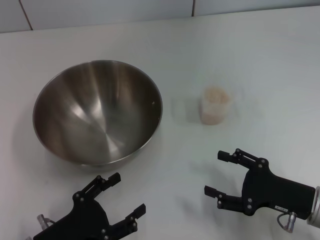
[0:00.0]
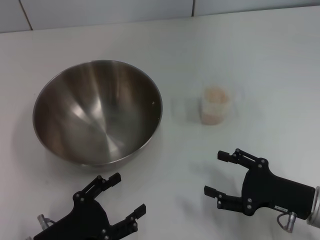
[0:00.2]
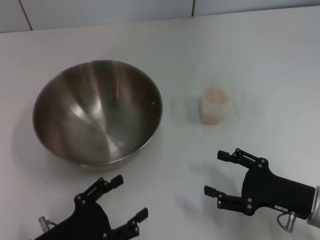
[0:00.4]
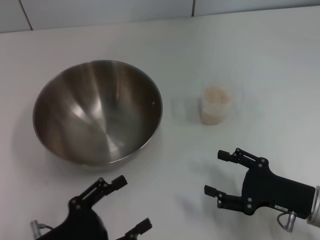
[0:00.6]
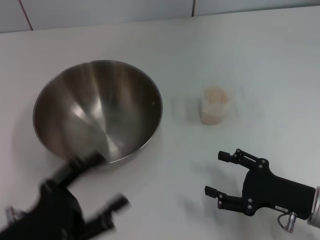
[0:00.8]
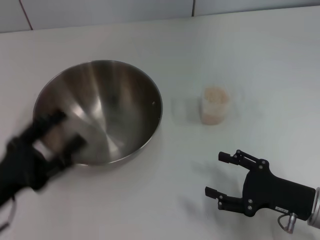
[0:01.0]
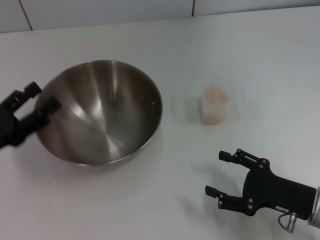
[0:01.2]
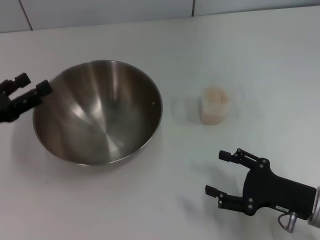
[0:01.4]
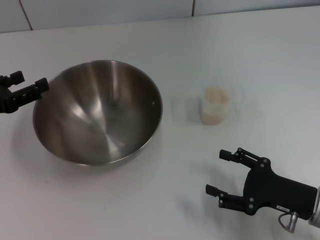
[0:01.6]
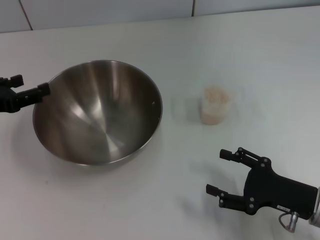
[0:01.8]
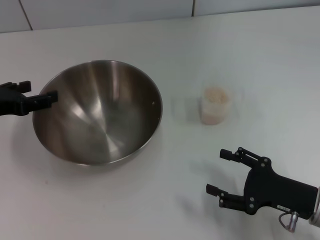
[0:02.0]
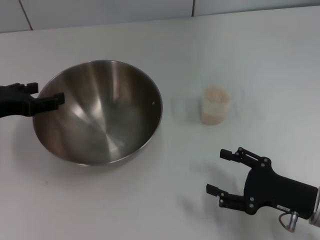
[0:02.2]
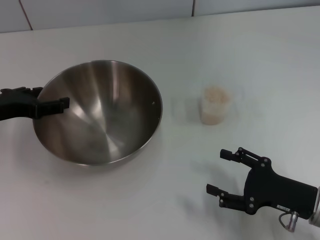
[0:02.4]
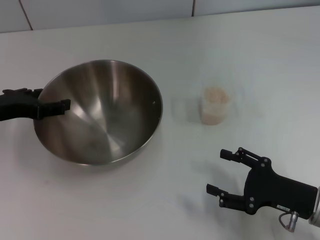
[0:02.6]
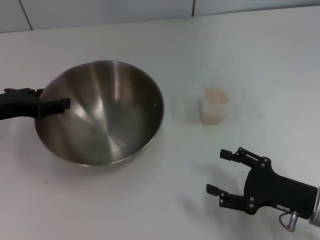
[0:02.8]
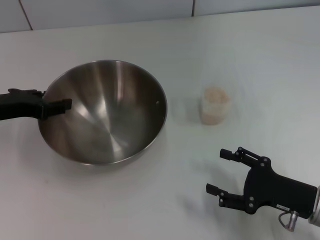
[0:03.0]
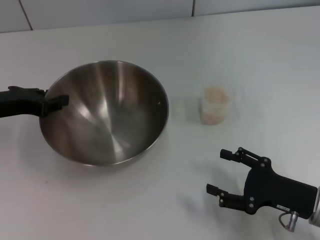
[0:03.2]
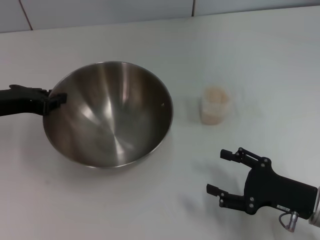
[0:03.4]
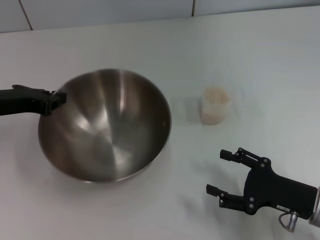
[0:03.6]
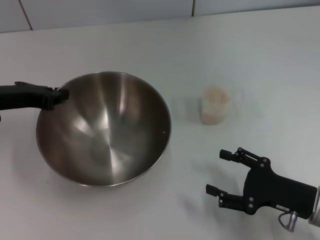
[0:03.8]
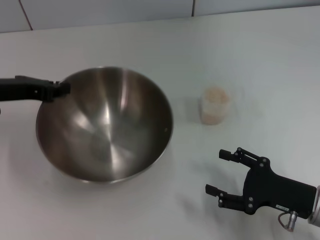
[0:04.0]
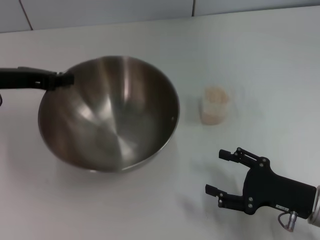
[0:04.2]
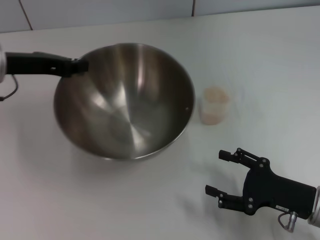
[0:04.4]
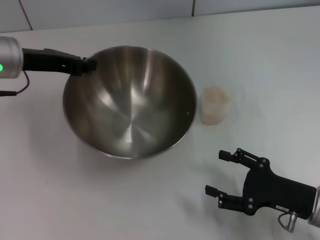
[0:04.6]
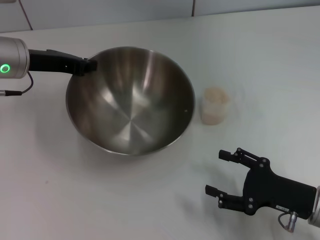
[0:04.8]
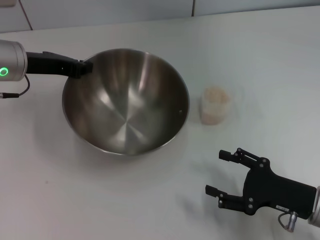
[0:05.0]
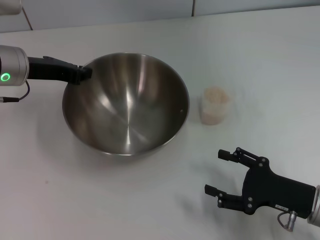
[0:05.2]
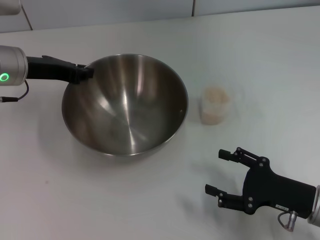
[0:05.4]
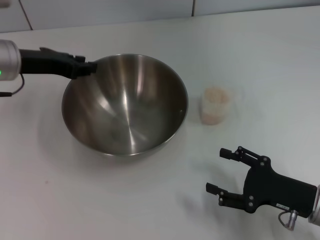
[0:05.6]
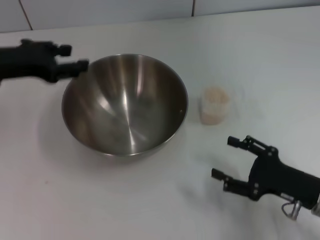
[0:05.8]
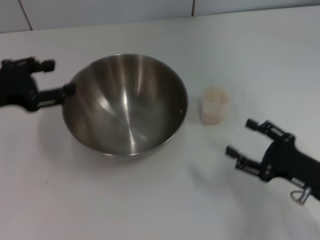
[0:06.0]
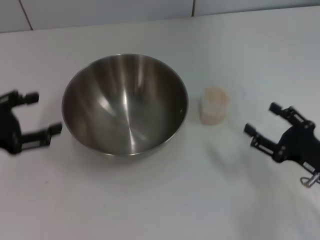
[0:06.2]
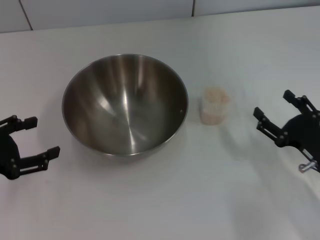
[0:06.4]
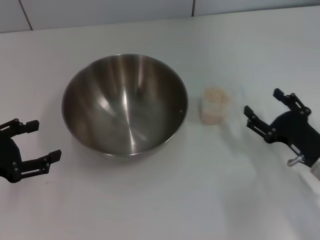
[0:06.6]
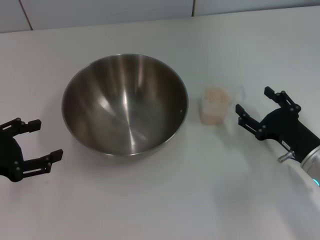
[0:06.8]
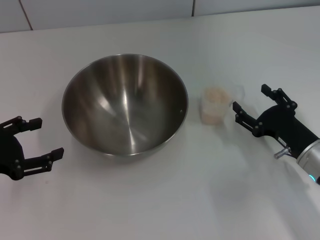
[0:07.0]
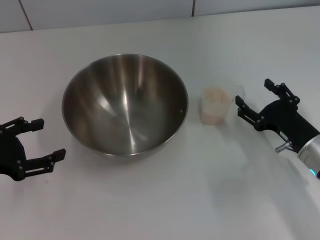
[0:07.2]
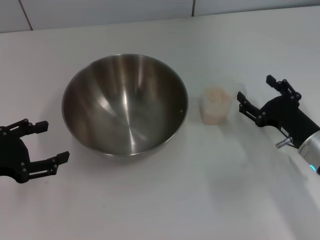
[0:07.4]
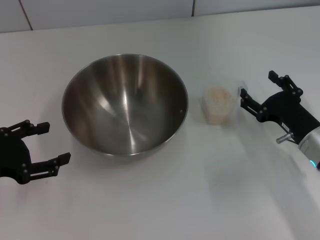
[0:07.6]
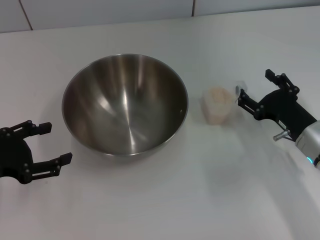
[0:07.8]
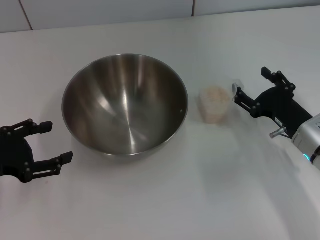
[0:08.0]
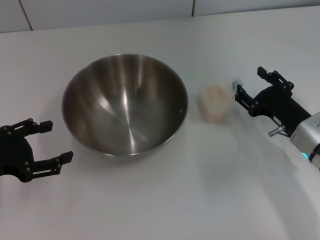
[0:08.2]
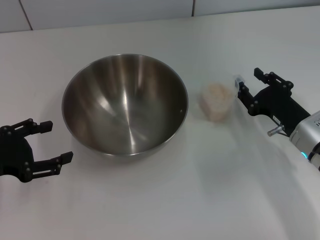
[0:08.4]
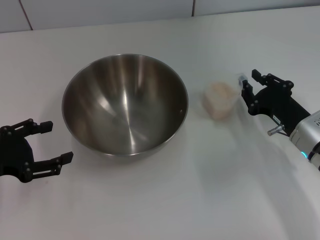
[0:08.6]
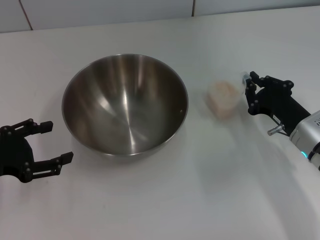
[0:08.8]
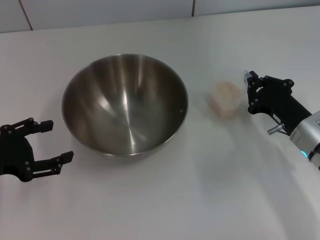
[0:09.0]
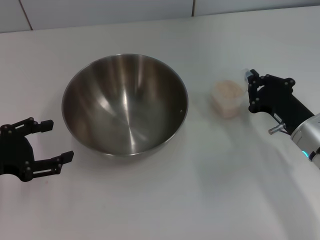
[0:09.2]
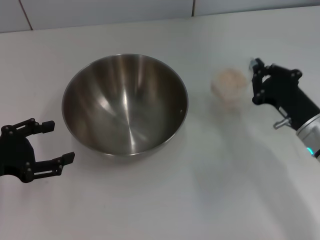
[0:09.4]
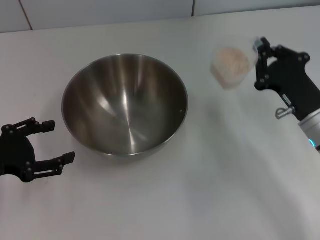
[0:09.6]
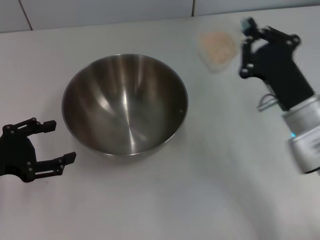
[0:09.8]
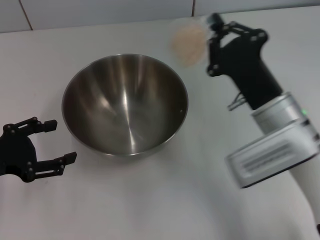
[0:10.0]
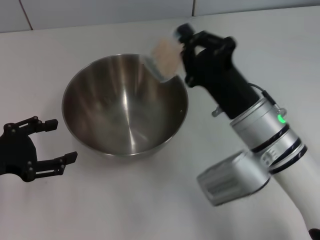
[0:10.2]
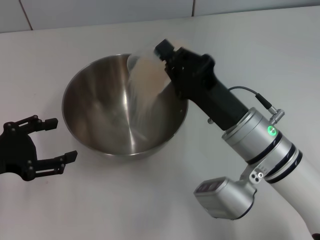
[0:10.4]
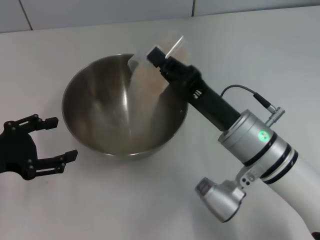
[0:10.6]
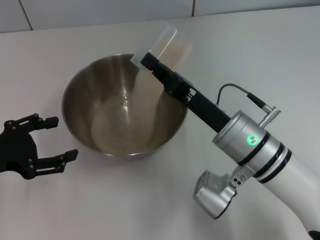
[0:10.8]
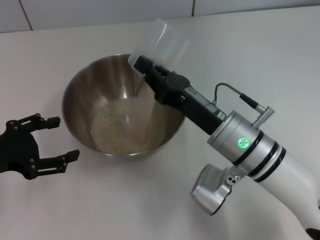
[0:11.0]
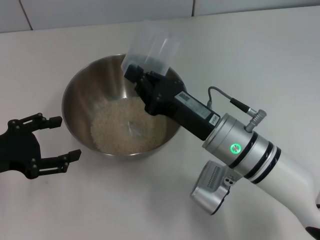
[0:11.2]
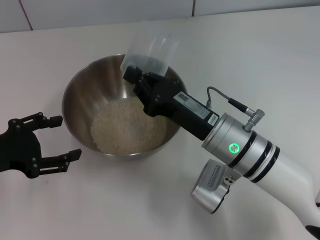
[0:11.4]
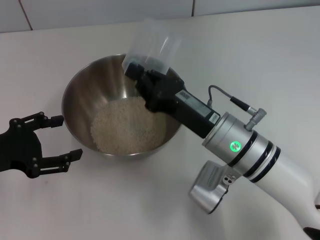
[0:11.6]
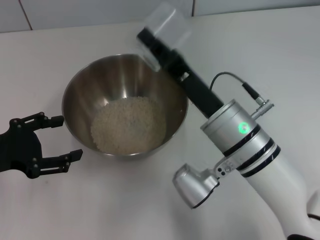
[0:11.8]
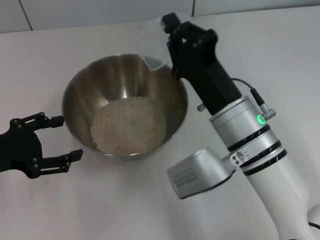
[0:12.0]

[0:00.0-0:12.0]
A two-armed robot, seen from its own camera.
Task of the whole recording: Place the bowl in the middle of the table with one hand and pour the rice from the grain cup into it with the other hand.
Step, 0:00.0 to 0:04.0: Pick up the bowl with the left gripper.
Step, 0:04.2 to 0:05.6: Place the bowl in the center of view with the left gripper.
Step, 0:05.8 to 0:09.6: Pick up the cup with rice in it with the right gripper.
0:00.0 to 0:01.6: The left gripper moves forward, upward and to the left, roughly 20 cm.
0:01.6 to 0:03.0: The left gripper ends up roughly 5 cm from where it was.
0:03.0 to 0:04.4: The left gripper shifts by roughly 5 cm, and closes.
0:04.4 to 0:06.0: The left gripper moves backward, approximately 5 cm, and opens.
0:06.0 to 0:07.6: The right gripper shifts about 5 cm forward. The left gripper is displaced backward and downward by some 10 cm.
0:07.6 to 0:09.0: The right gripper closes its fingers.
0:09.0 to 0:10.4: The right gripper moves to the left and upward, some 15 cm.

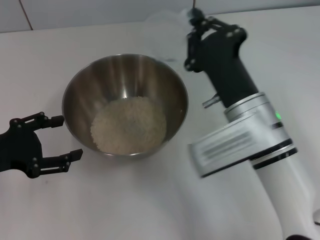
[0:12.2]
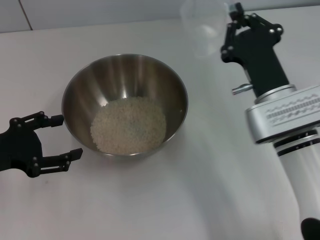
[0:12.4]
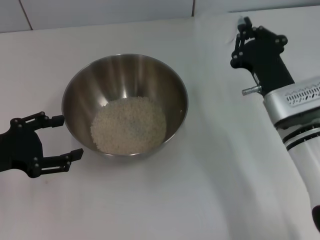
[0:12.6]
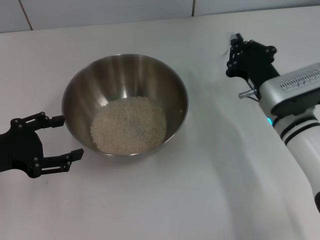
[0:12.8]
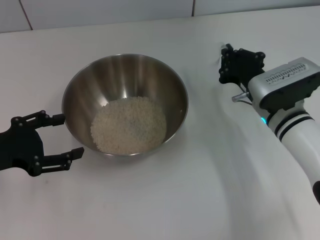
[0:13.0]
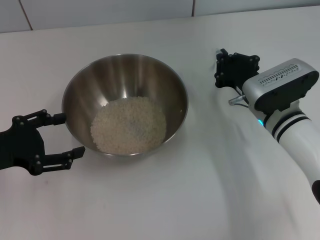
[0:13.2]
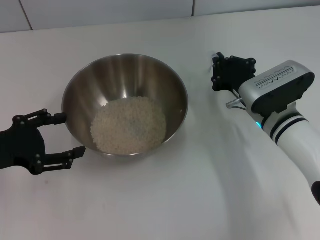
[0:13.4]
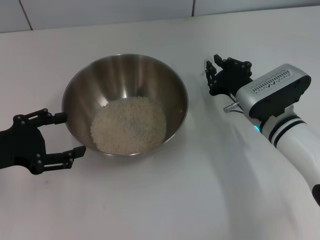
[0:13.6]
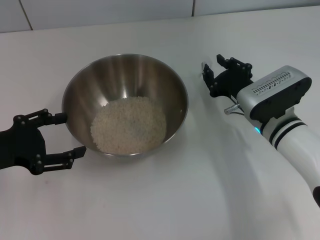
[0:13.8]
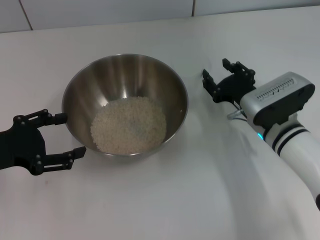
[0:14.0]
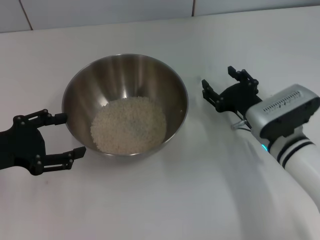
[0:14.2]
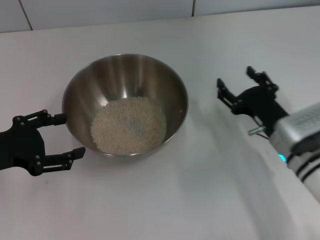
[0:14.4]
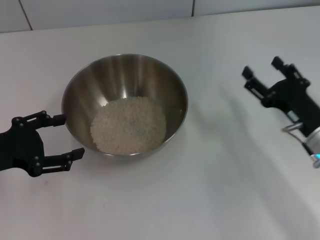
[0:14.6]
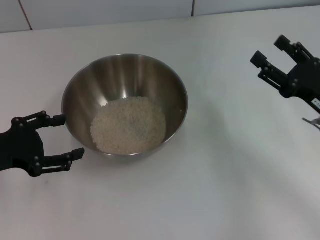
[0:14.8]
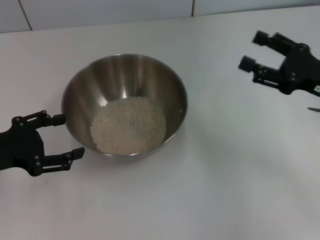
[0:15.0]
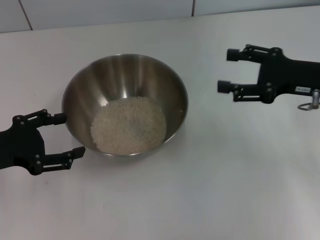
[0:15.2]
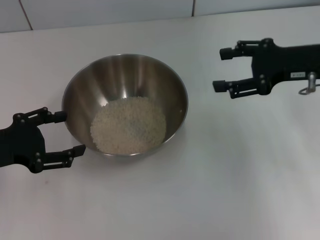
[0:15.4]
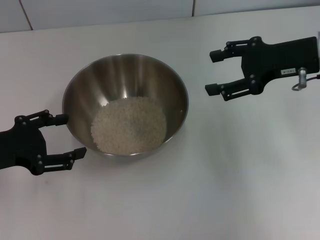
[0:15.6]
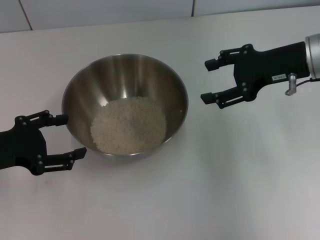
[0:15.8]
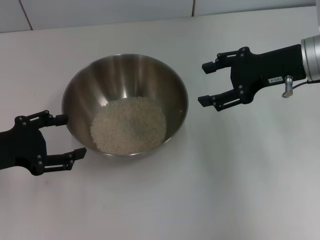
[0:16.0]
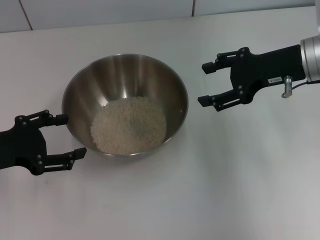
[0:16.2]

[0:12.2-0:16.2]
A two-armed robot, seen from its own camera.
Task of the whole recording: Place the bowl in the middle of the table with one hand and pour the rice from the grain cup into it with the other hand.
Step, 0:12.2 to 0:14.2: Place the cup on the table with the right gripper.
0:12.2 to 0:13.6: The right gripper shifts some 10 cm to the right, downward and forward.
0:13.6 to 0:14.8: The right gripper moves to the right and backward, some 15 cm, and opens its fingers.
0:14.8 to 0:16.2: The right gripper is displaced upward and forward by roughly 15 cm.
